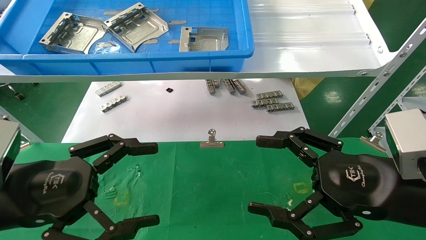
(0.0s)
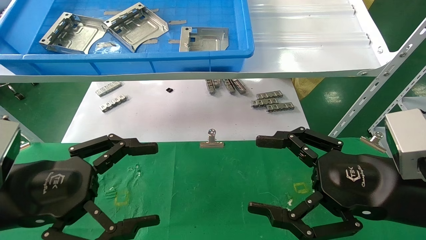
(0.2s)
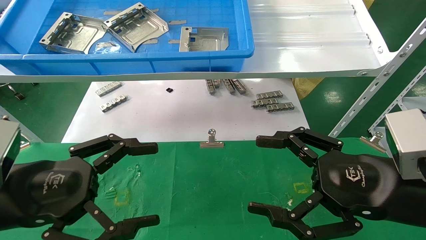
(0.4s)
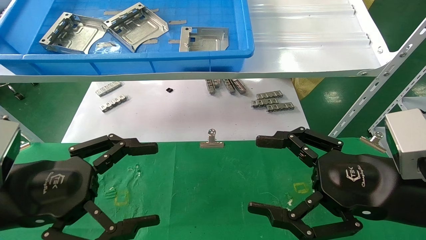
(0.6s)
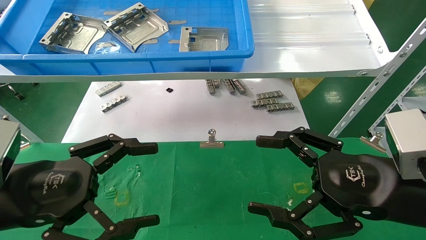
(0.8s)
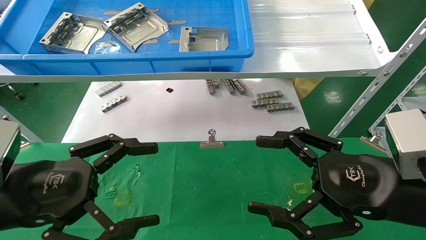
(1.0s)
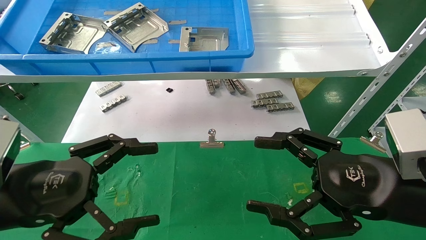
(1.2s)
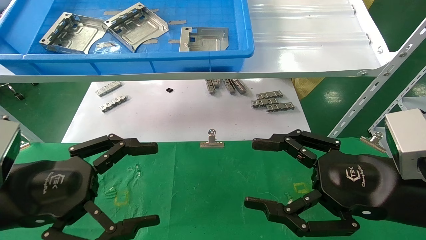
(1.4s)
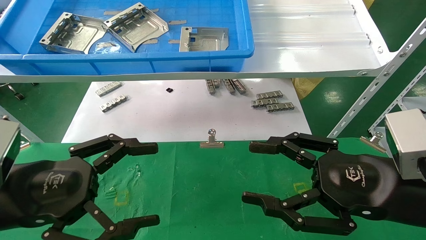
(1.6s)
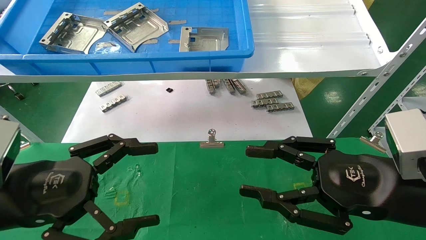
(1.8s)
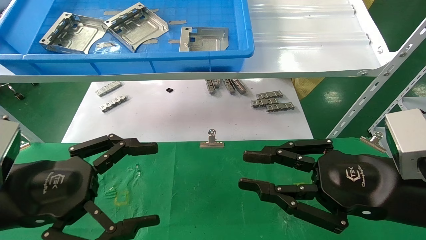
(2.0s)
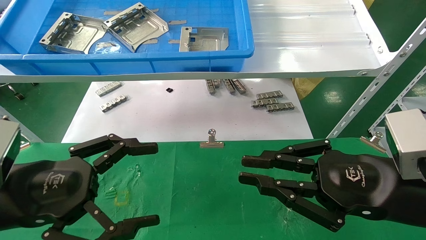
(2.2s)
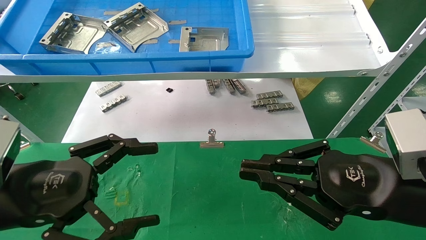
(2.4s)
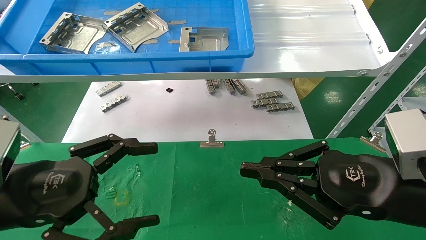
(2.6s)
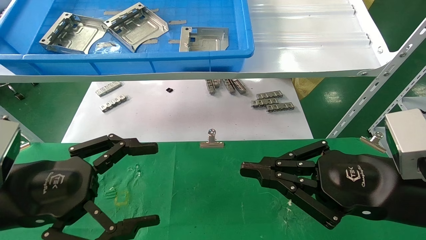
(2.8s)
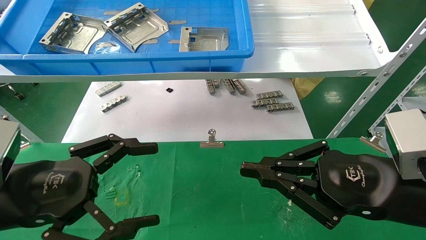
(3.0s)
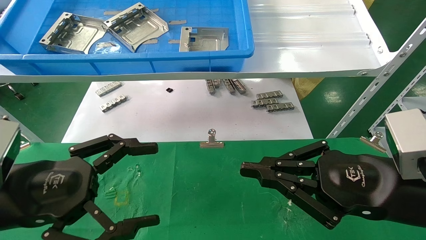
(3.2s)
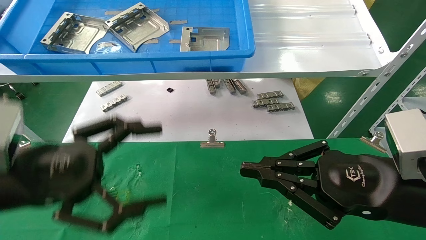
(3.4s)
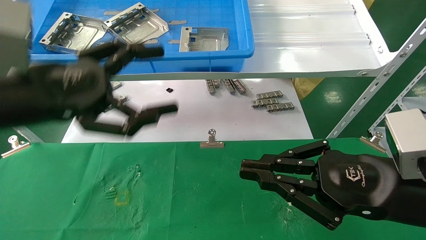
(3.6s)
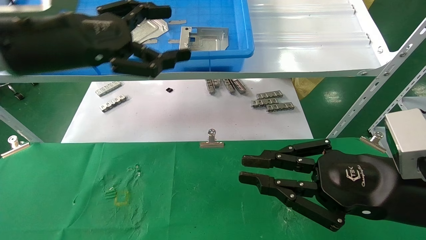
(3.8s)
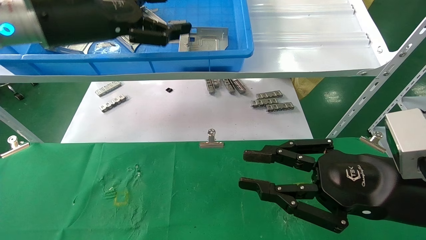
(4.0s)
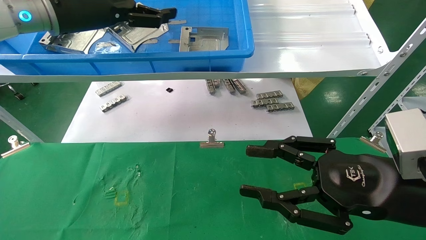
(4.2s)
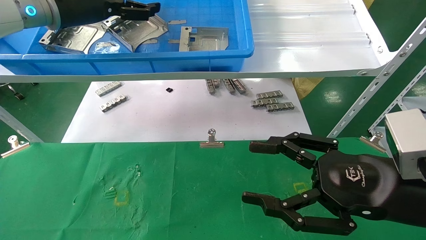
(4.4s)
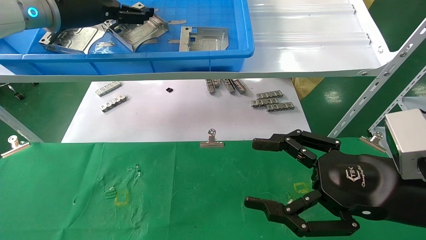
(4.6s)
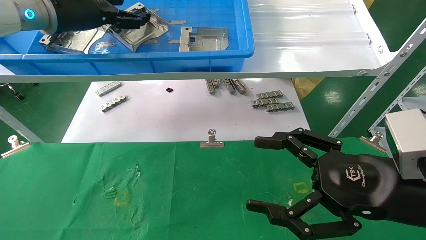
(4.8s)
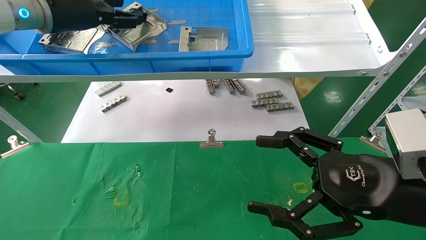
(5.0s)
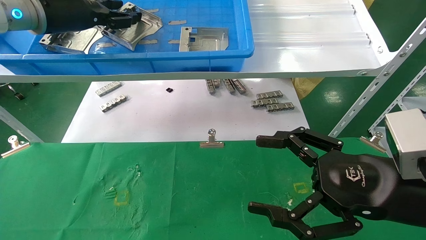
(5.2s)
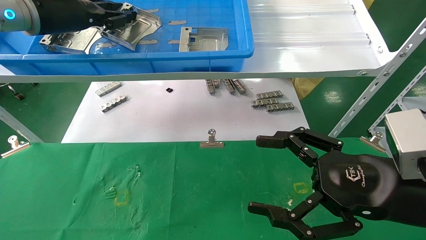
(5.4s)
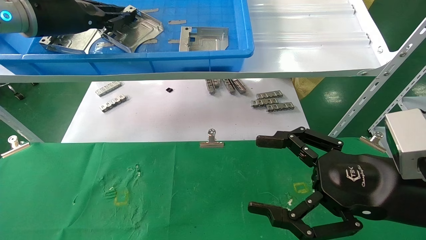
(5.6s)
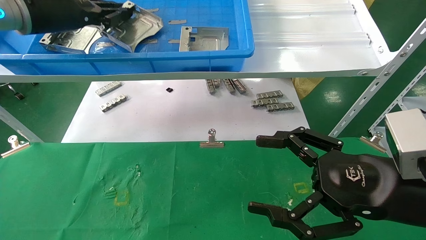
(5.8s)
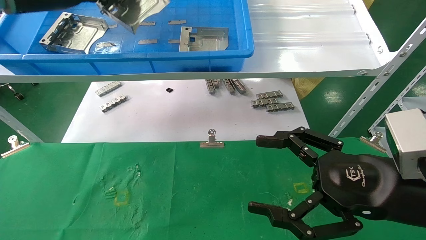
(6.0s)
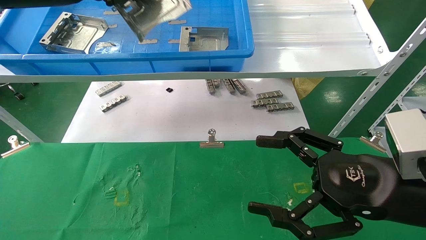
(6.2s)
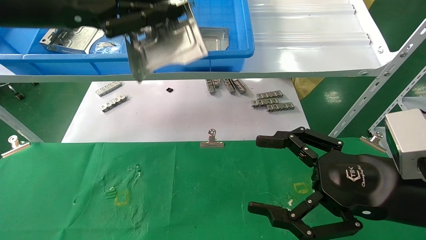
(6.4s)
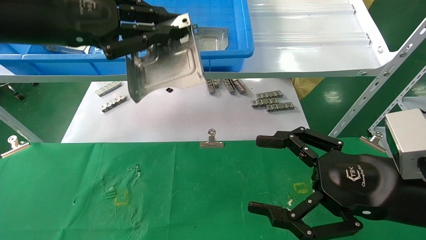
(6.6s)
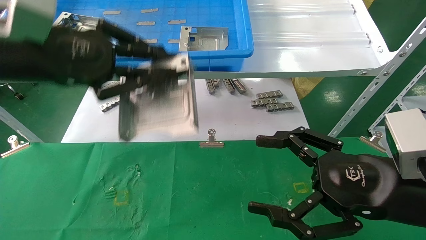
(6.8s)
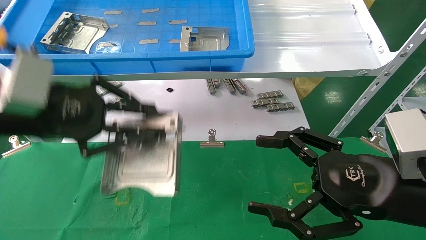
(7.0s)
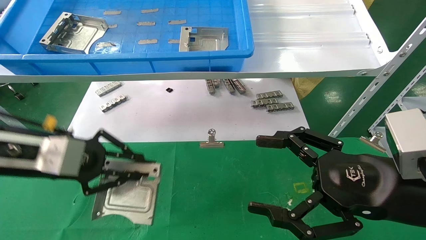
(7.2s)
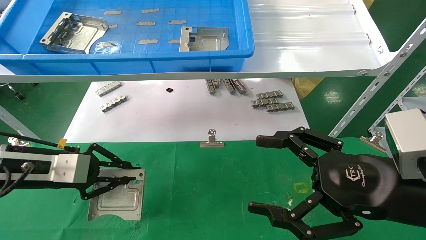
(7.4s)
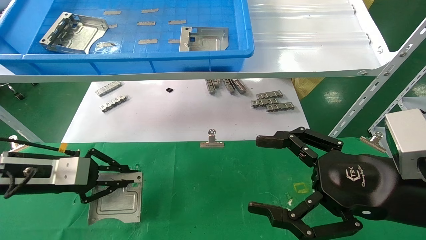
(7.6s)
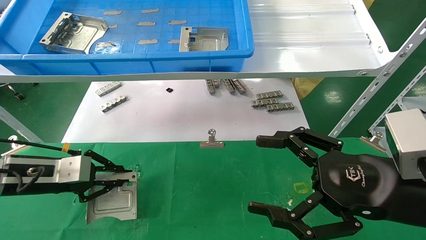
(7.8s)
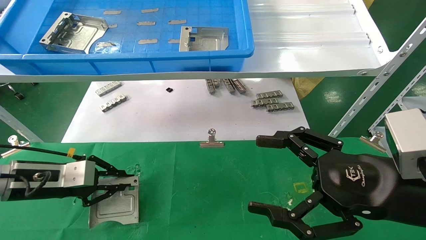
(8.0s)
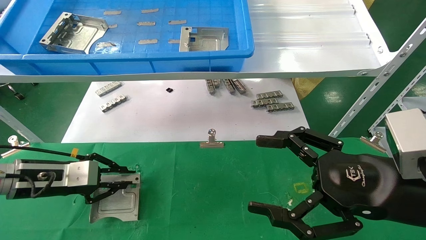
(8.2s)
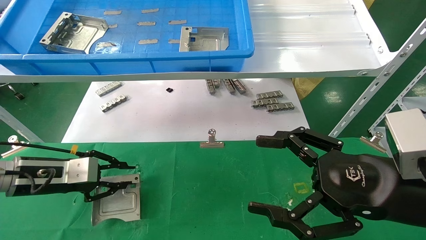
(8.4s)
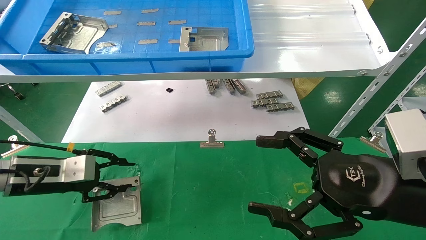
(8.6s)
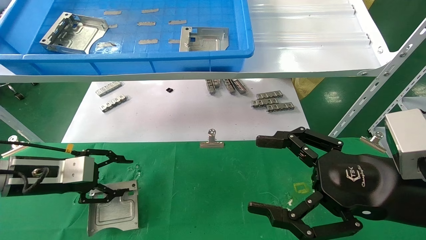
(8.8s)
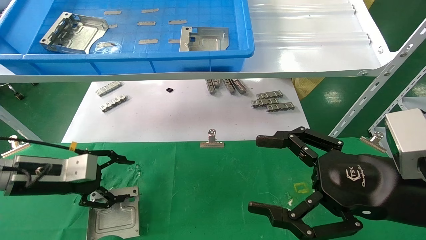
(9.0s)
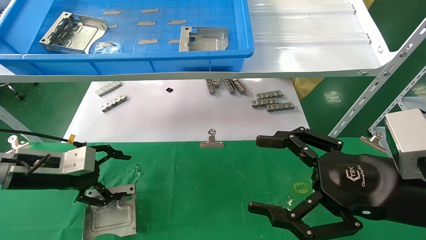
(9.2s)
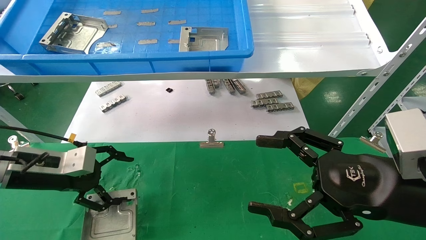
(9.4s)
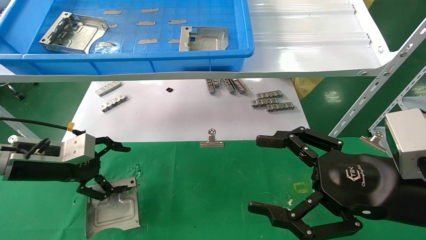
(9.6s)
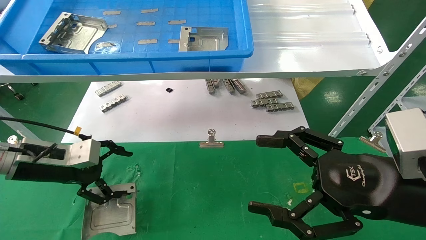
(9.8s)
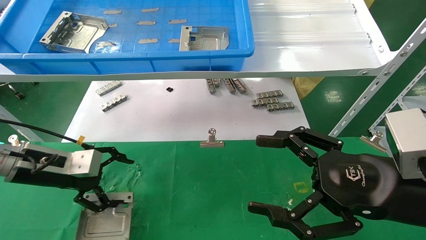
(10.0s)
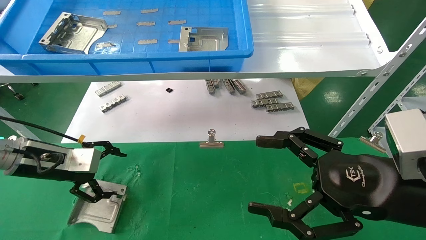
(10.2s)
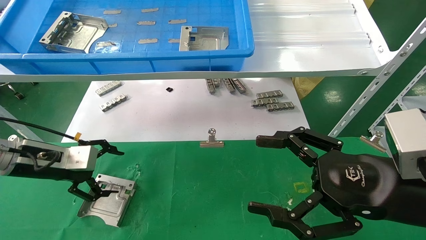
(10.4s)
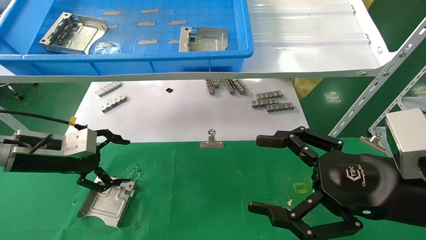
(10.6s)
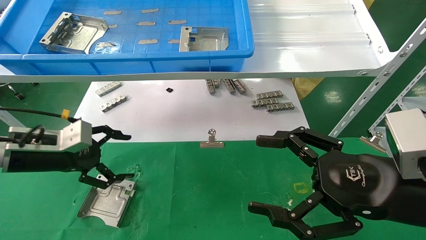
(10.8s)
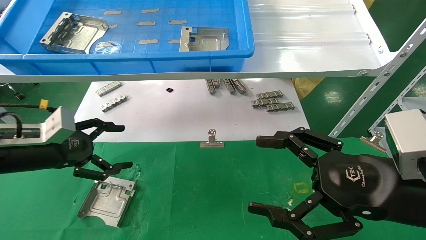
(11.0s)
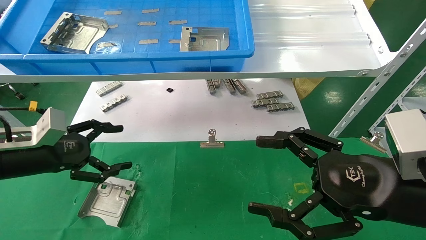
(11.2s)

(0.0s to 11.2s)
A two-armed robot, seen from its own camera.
Task of the whole recording: use the mechanical arm to pick up the parts and place them on the table.
Step, 3.4s - 5.6s: Pick up the hard drive bracket from the feeding area.
Step, 5.8s - 10.8s: Place the hard drive bracket into the box.
0.0s - 1.6s: Neither gripper changes place.
1.6s - 3.2s: The right gripper closes up.
3.2s - 4.8s: The left gripper travels forward and upward by some 30 cm. The right gripper opens its fingers.
4.8s - 6.4s: The left gripper heads backward, covering about 10 cm, and closes.
6.4s - 8.0s: The left gripper goes approximately 30 cm downward.
8.0s - 9.6s: The left gripper opens its fingers.

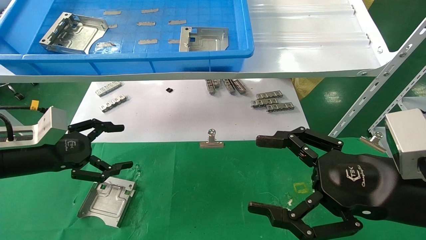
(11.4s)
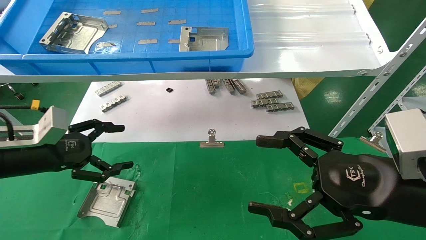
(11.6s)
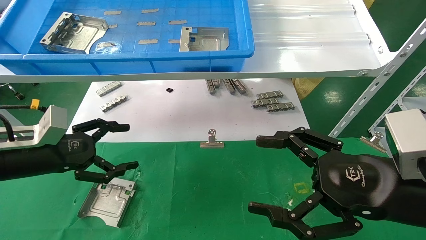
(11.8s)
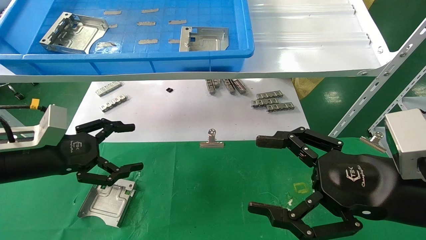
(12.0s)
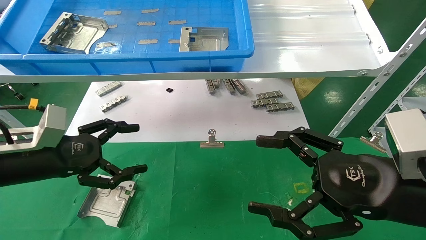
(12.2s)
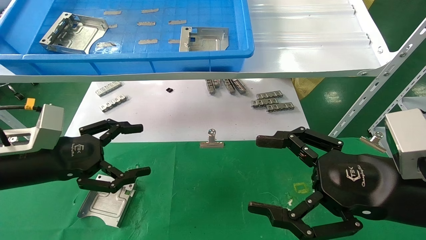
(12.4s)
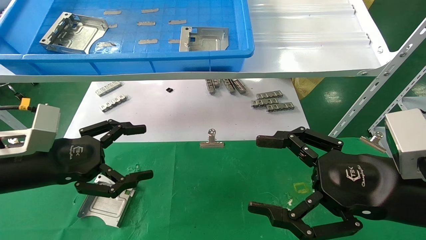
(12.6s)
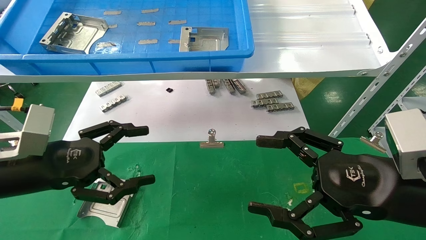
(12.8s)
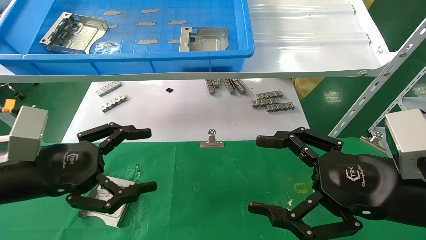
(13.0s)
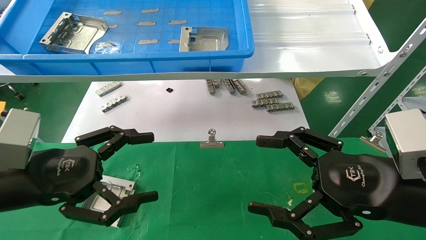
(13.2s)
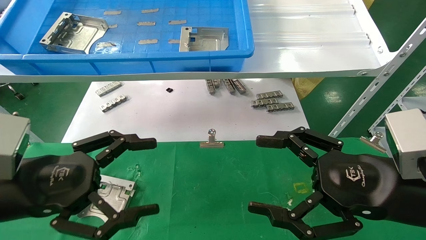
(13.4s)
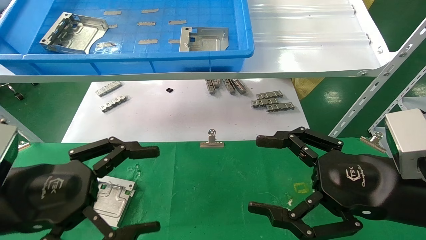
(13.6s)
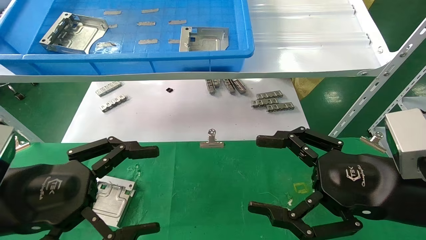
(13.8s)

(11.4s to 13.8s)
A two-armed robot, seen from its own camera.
Task of the whole recording: use the mechanical arm to pick up the parts and place them on the table.
11.4s - 12.6s: The left gripper shifts approximately 5 cm to the right and backward.
12.6s - 13.8s: The left gripper heads backward, covering about 10 cm.

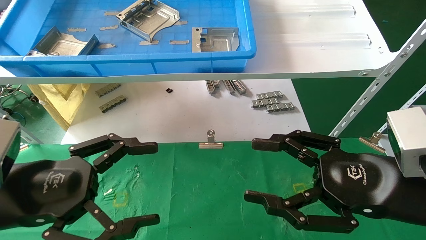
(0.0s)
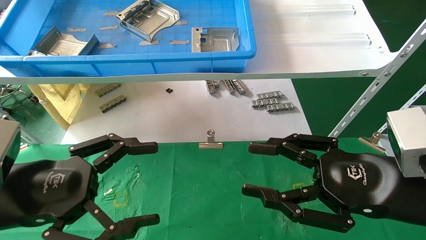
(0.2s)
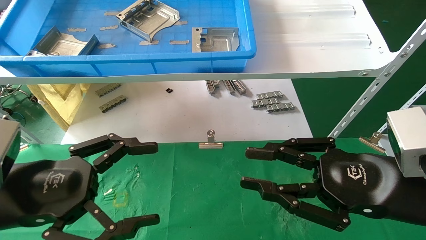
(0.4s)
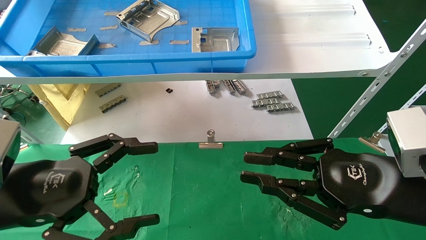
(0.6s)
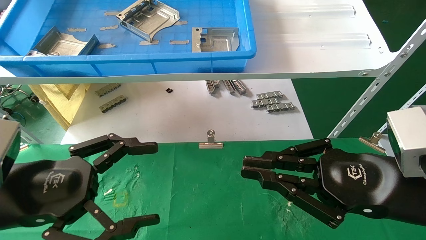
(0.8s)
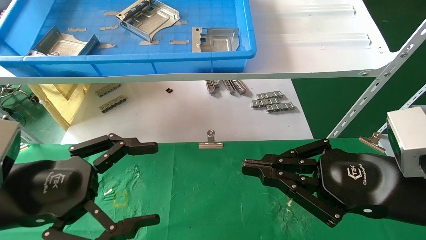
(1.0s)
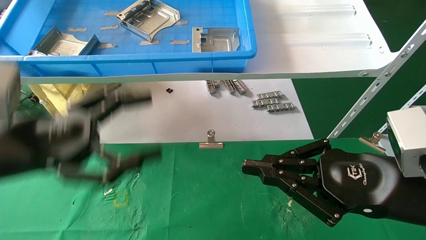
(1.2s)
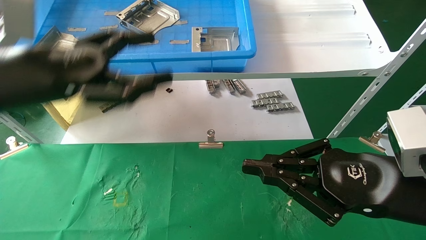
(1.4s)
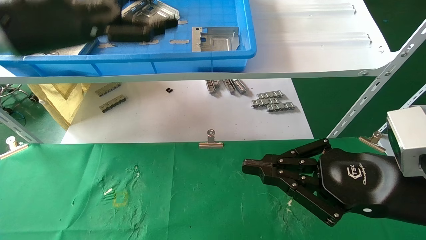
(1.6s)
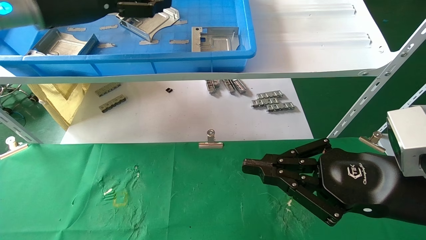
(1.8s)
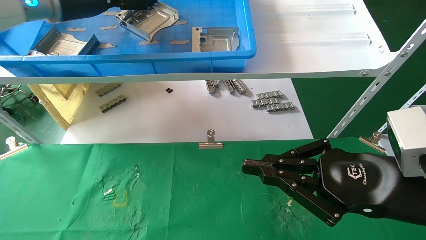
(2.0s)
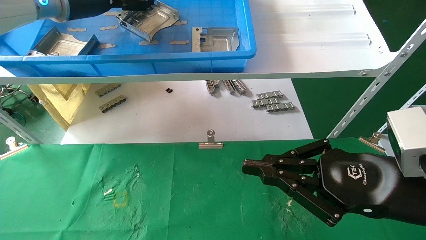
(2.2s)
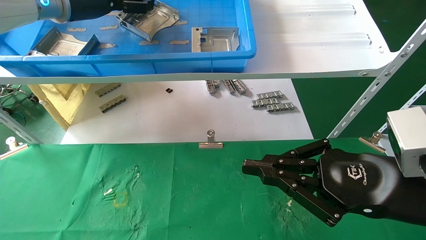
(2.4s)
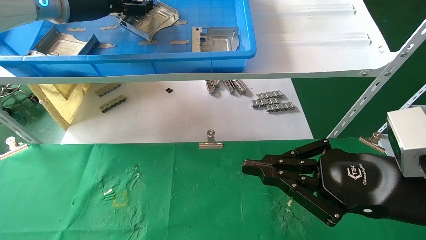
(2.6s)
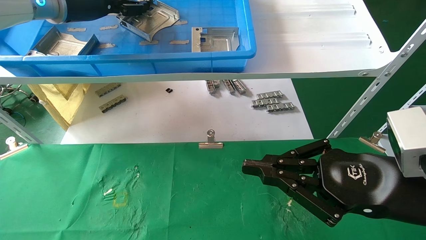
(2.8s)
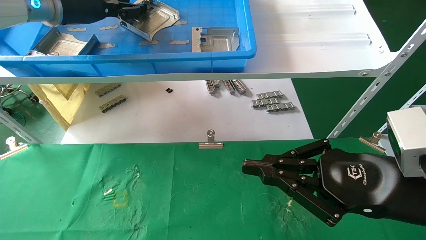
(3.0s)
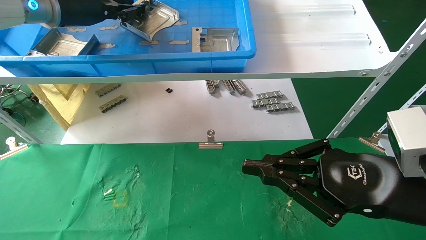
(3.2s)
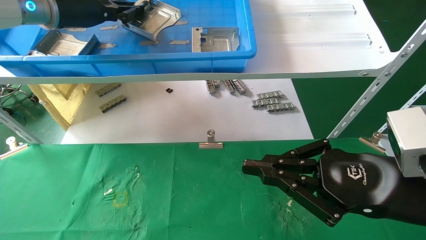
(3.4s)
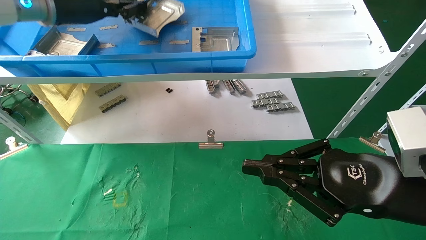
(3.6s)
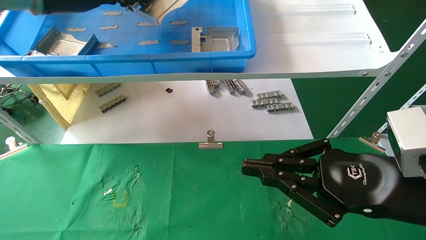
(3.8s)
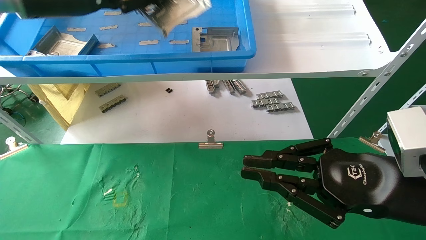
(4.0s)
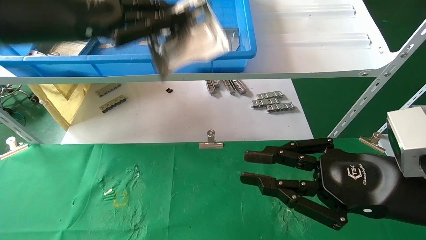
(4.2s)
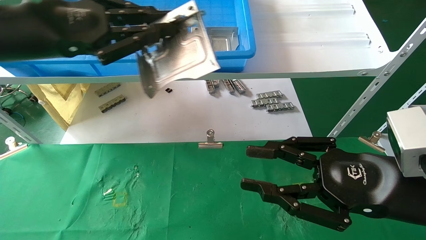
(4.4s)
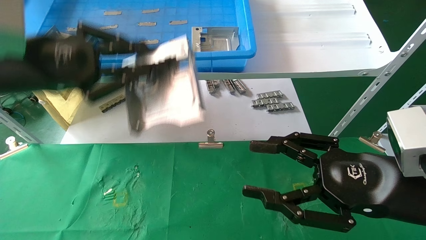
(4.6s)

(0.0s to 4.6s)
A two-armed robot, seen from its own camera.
Task of the whole recording: use the mechanical arm to pick up the parts and place them on the table.
Step, 1.4s - 3.4s: Pick up the hard drive bracket from the feeding area.
0.0s - 1.6s: The left gripper moves upward and forward, approximately 25 cm, while the right gripper closes.
1.6s - 3.0s: The left gripper travels forward and upward by approximately 10 cm, and closes up.
3.0s - 4.6s: The left gripper travels backward and downward by roughly 20 cm, and closes; the right gripper opens.
